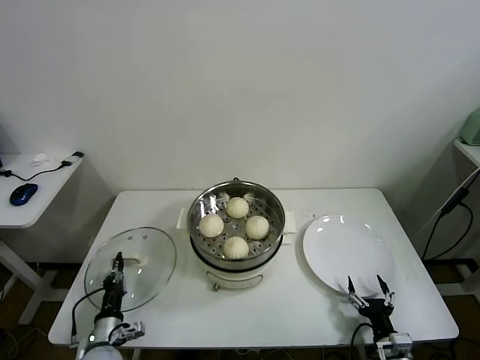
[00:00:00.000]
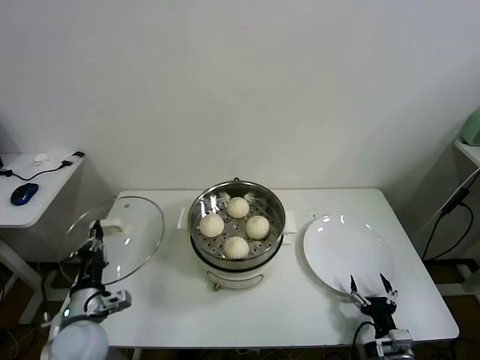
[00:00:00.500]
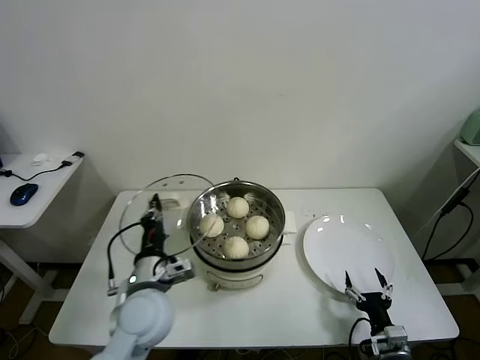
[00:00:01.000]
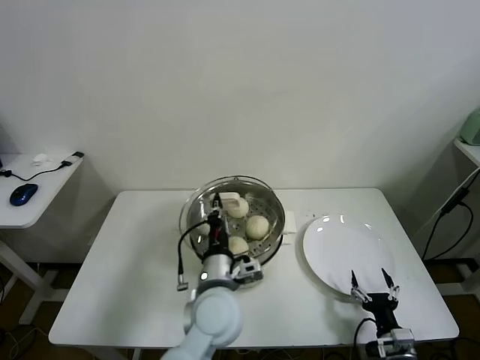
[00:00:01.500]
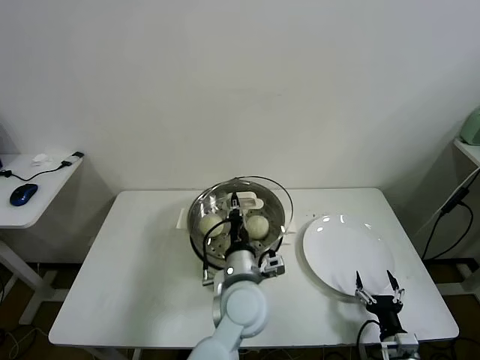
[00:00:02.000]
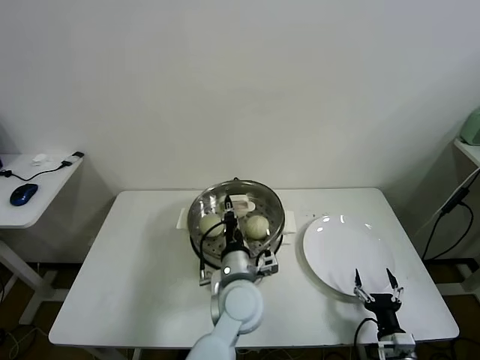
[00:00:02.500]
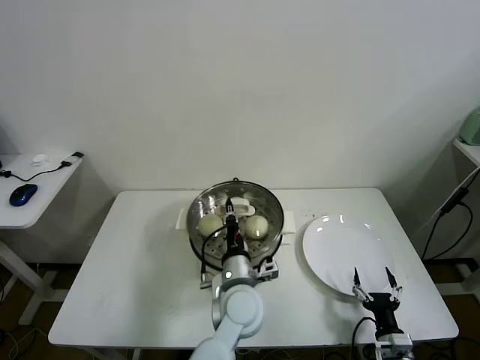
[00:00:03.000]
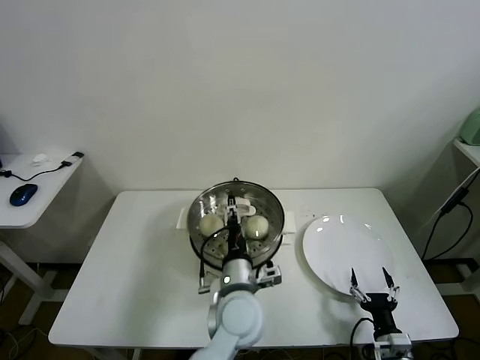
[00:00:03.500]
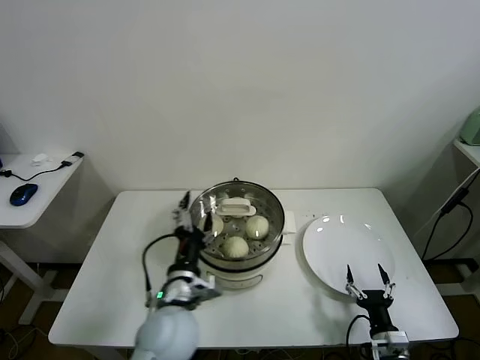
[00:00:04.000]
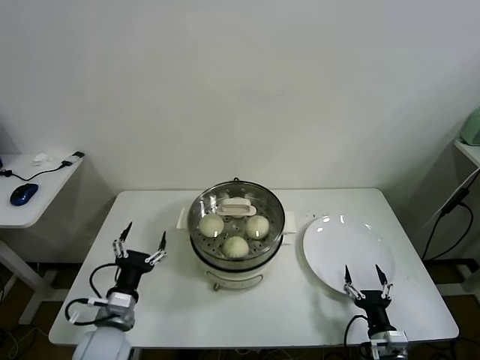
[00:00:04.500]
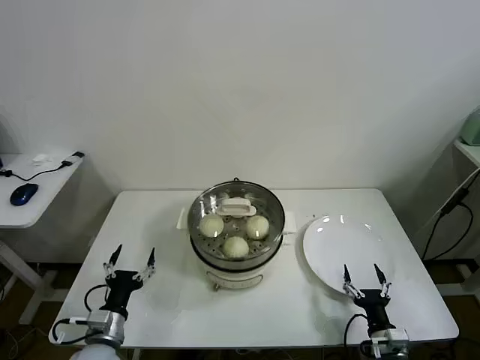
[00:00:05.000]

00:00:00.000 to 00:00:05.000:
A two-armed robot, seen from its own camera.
Task of the whole recording: take steamed baozi put them in steamer.
Step, 00:00:00.000 to 00:00:03.500: Place the pot lid on the steamer with left gripper.
00:00:00.000 to 00:00:02.500: The left gripper goes approximately 35 cm to the right and upward.
00:00:02.500 to 00:00:05.000: The left gripper heads to the left, covering approximately 30 cm, and opens up.

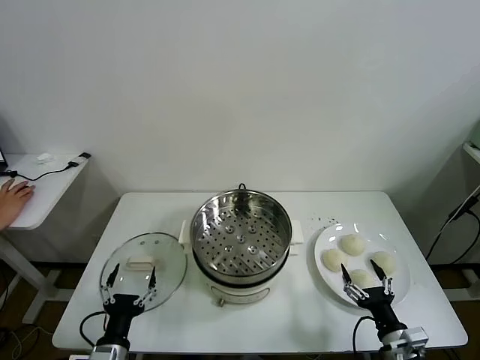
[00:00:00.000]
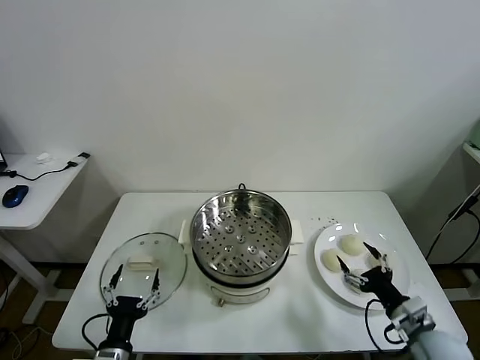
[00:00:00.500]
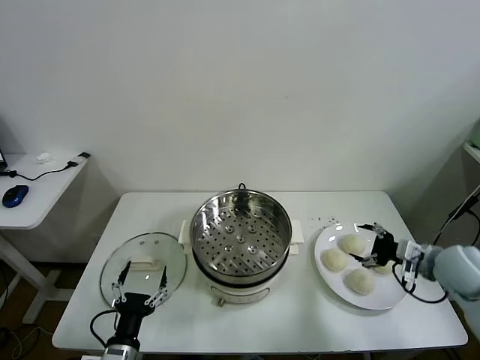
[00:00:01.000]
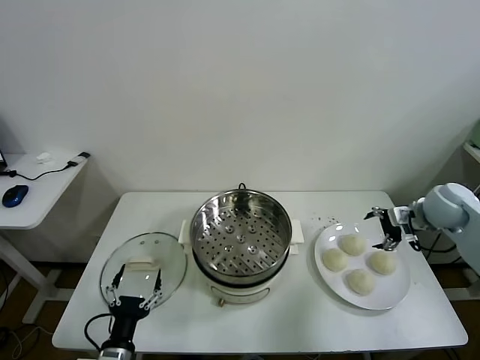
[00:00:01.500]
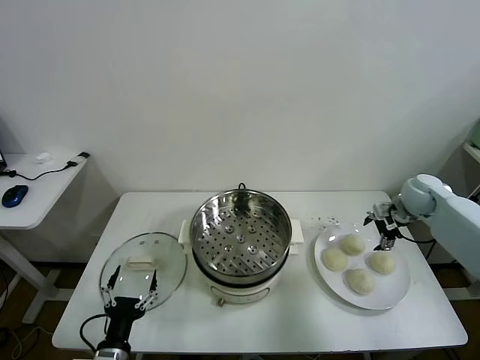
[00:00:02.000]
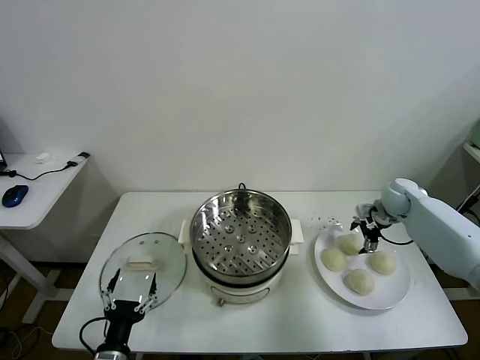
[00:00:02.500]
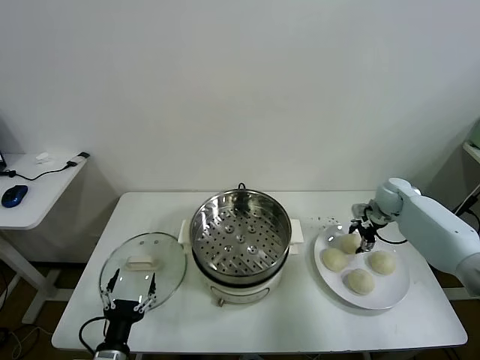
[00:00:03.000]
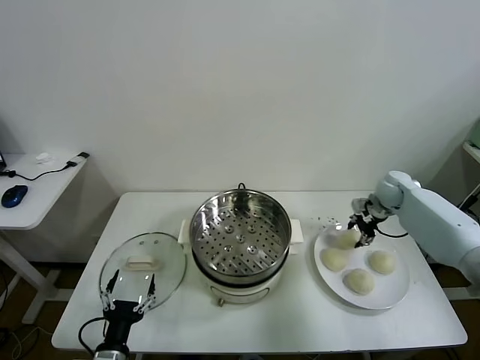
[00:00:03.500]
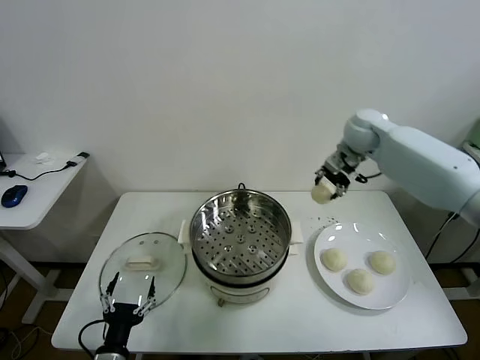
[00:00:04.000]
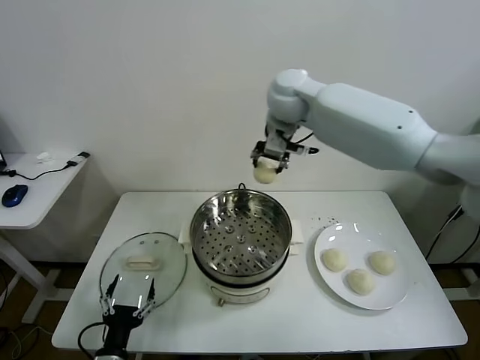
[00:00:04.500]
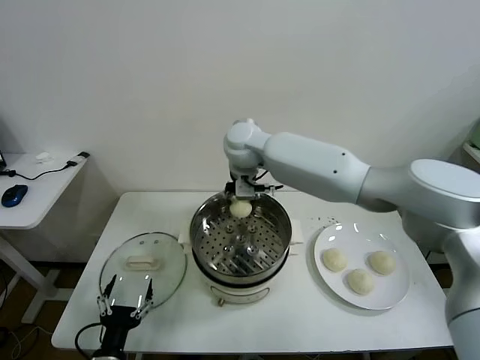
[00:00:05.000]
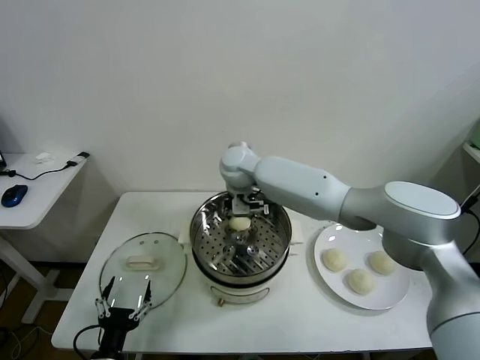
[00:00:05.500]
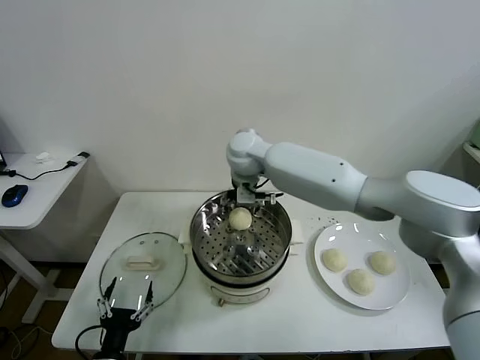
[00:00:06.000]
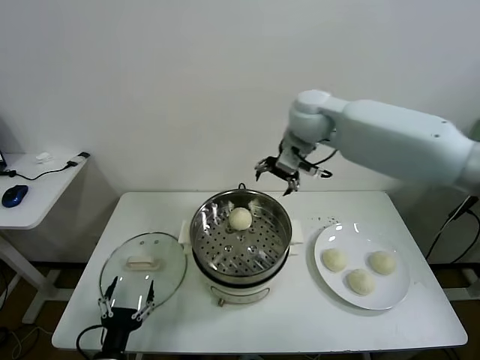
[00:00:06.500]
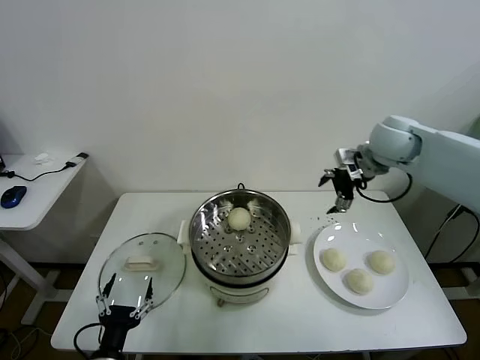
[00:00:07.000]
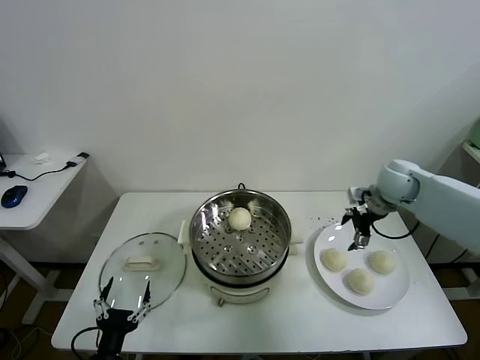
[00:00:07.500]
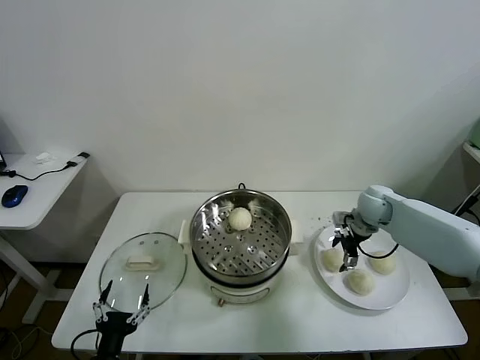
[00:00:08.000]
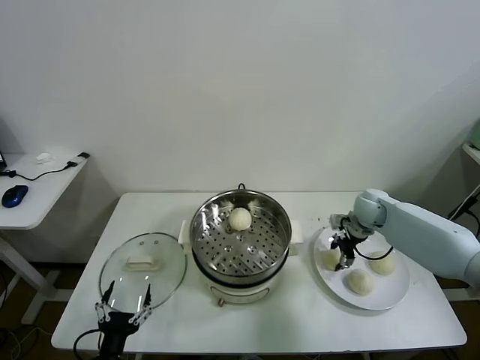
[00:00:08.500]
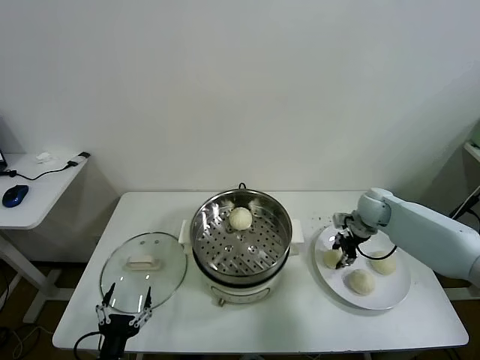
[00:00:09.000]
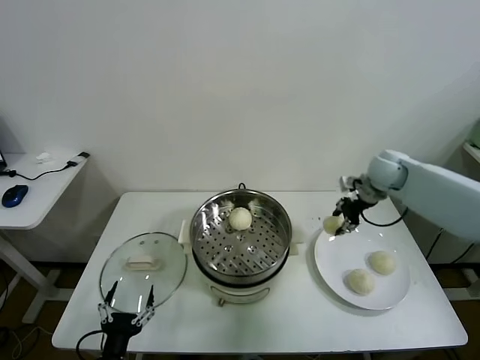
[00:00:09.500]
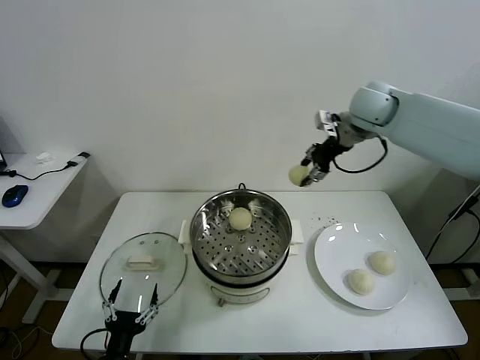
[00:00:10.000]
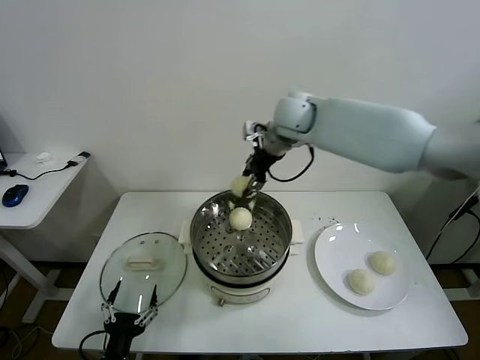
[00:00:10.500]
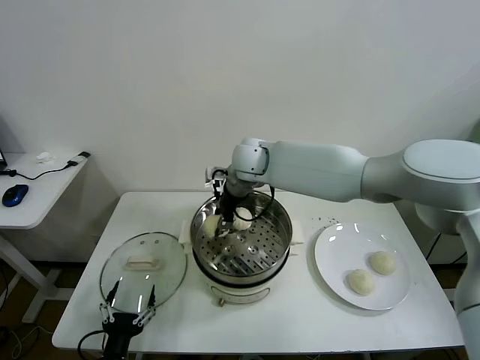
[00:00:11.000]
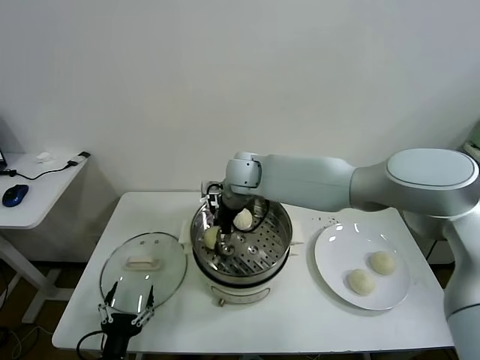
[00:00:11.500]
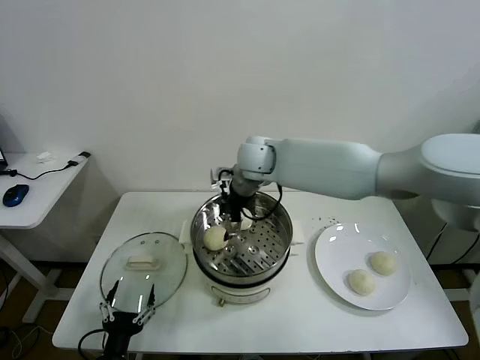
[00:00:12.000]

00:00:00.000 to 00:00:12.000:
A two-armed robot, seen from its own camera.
Task of the whole recording: take steamed baozi put them in steamer.
Step, 00:00:00.000 to 00:00:03.000: Grasp the baozi in the plate with right gripper.
Step, 00:00:03.500 to 00:00:06.000: Place the baozi on the steamer with right gripper.
Step, 00:00:06.500 to 00:00:08.000: Grasp the baozi in the plate with right gripper.
Step, 00:00:08.500 to 00:00:11.500: Place the baozi on the steamer with right gripper.
00:00:02.000 to 00:00:04.000: The right gripper heads upward and to the left, covering approximately 25 cm, and closes.
00:00:04.000 to 00:00:06.000: The right gripper heads to the left, covering approximately 25 cm, and opens.
00:00:06.000 to 00:00:08.000: The right gripper heads to the right and downward, covering approximately 35 cm.
00:00:08.000 to 00:00:10.000: The right gripper is displaced upward by roughly 25 cm, and closes up.
00:00:10.000 to 00:00:12.000: The right gripper goes roughly 25 cm to the left and downward, and opens.

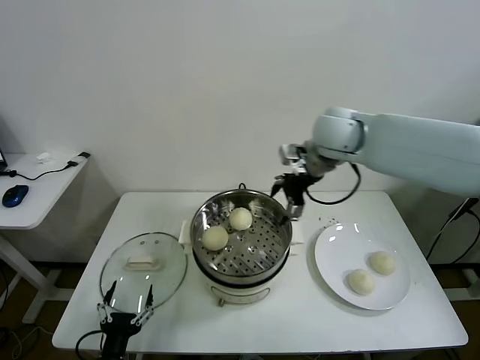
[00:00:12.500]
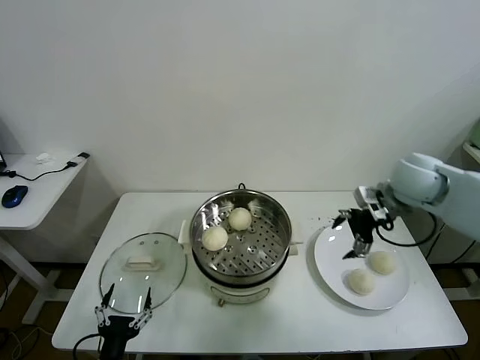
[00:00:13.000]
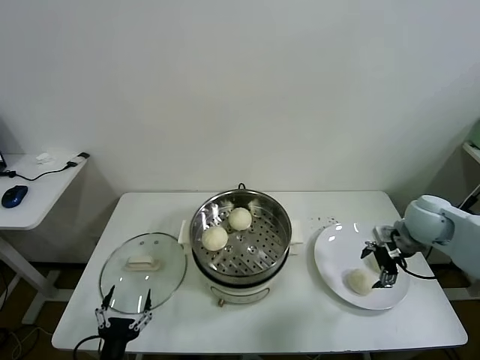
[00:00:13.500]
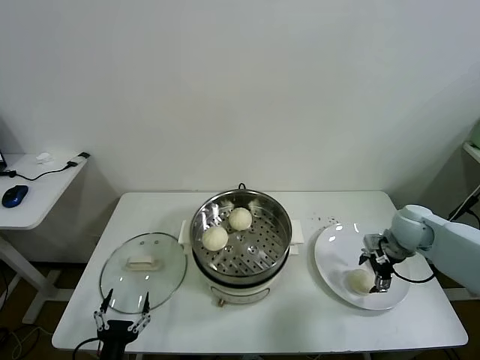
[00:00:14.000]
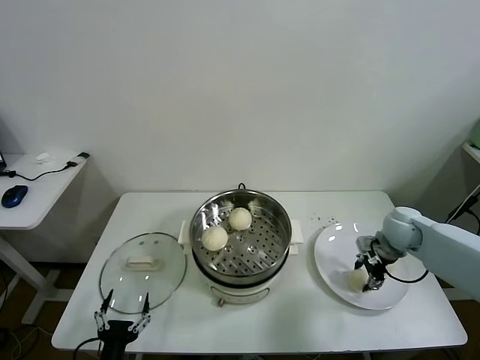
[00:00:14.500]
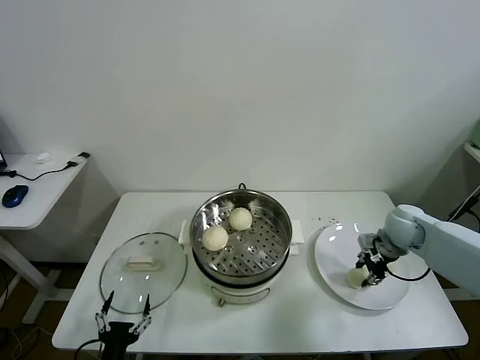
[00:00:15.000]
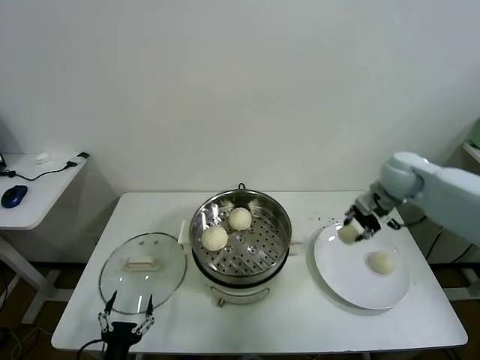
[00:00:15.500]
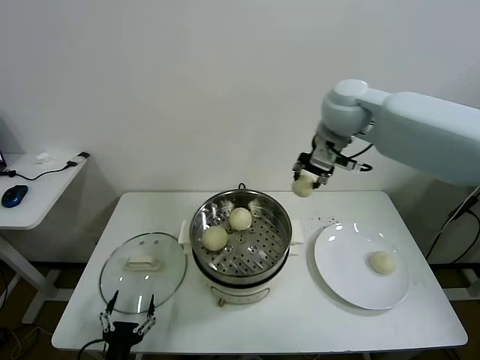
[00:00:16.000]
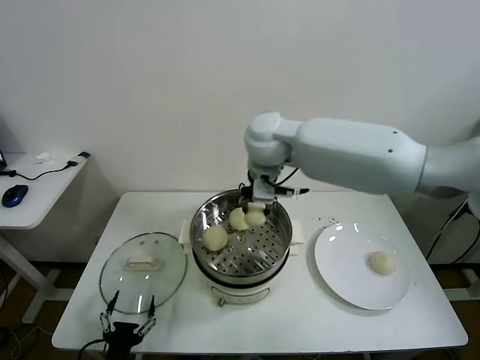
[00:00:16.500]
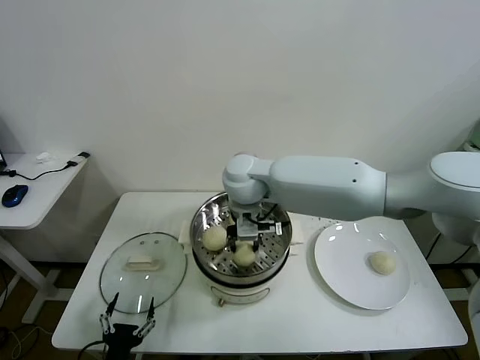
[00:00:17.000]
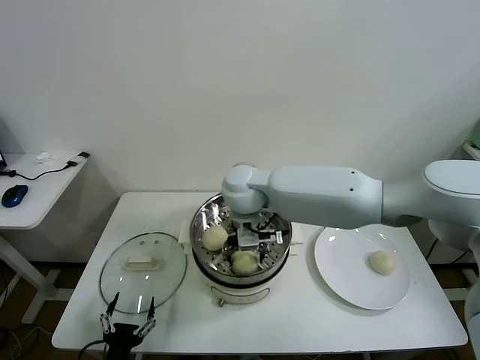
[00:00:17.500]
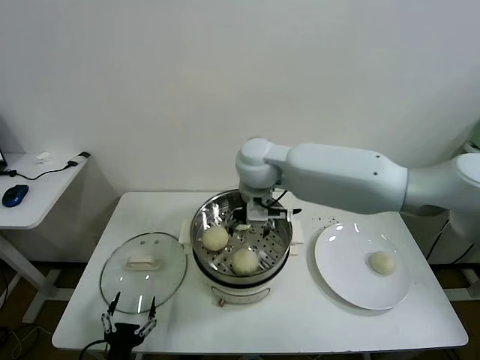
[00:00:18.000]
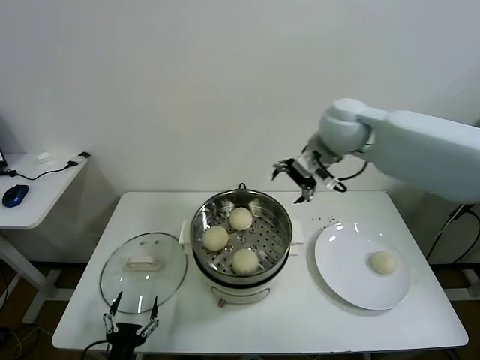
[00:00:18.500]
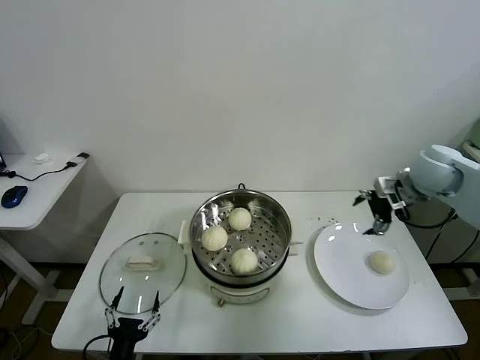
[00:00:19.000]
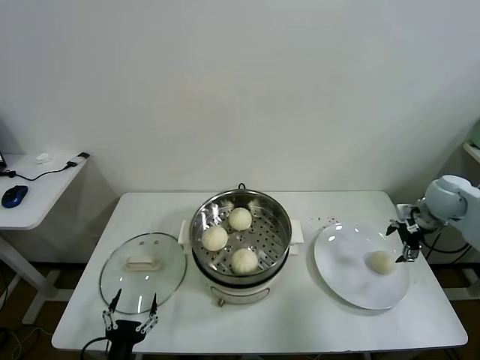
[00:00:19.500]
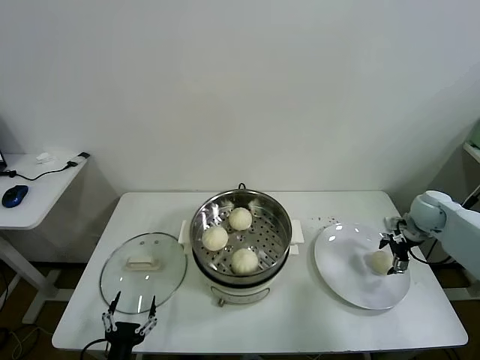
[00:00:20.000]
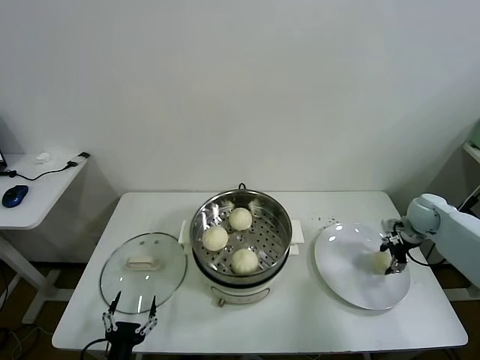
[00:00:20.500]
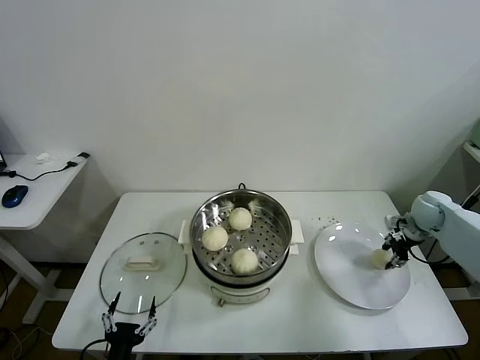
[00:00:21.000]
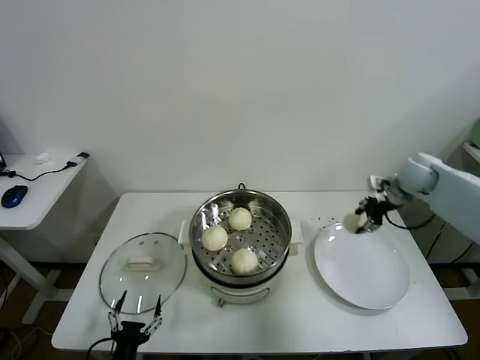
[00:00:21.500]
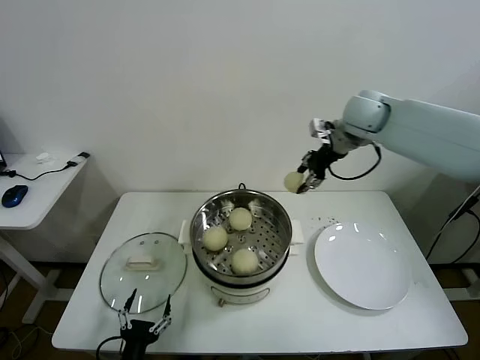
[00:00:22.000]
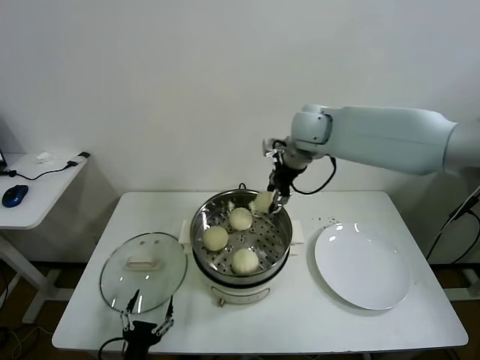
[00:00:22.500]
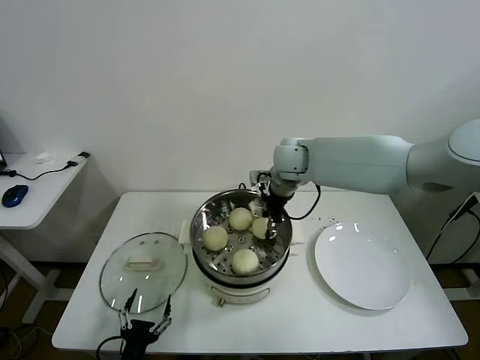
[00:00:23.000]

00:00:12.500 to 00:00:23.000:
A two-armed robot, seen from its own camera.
Task of the whole recording: take steamed baozi put them in steamer.
Step, 00:00:12.500 to 00:00:14.000: Grasp the baozi in the plate with right gripper.
Step, 00:00:15.000 to 00:00:17.500: Place the baozi on the steamer with right gripper.
Step, 00:00:18.000 to 00:00:20.500: Grasp the baozi in the plate with right gripper.
00:00:12.500 to 00:00:14.500: The right gripper travels downward and to the right by some 30 cm, and closes.
00:00:14.500 to 00:00:16.500: The right gripper travels to the left and upward by some 40 cm.
00:00:16.500 to 00:00:19.000: The right gripper goes some 35 cm to the right, and opens its fingers.
00:00:19.000 to 00:00:21.000: The right gripper moves downward and to the right, approximately 20 cm, and closes up.
00:00:21.000 to 00:00:23.000: The right gripper travels to the left by approximately 35 cm.